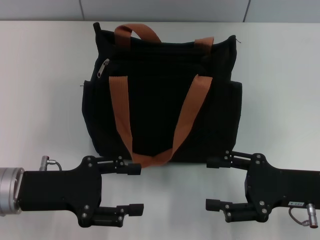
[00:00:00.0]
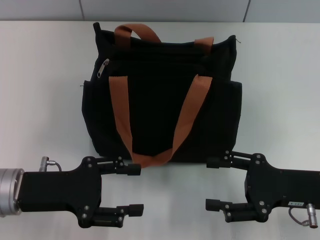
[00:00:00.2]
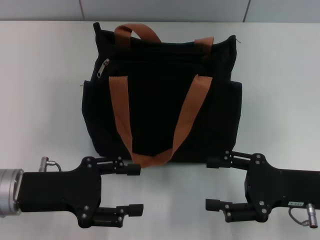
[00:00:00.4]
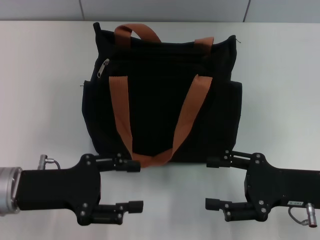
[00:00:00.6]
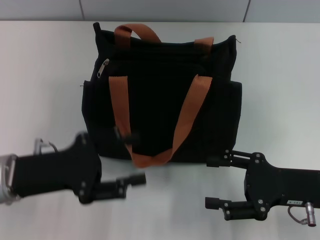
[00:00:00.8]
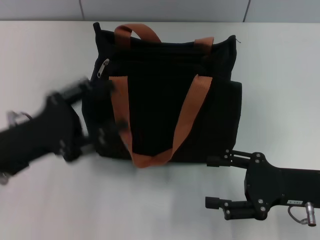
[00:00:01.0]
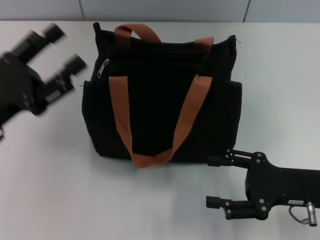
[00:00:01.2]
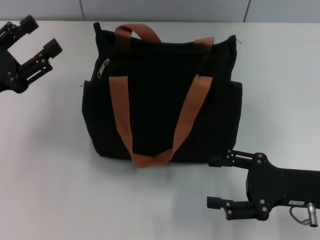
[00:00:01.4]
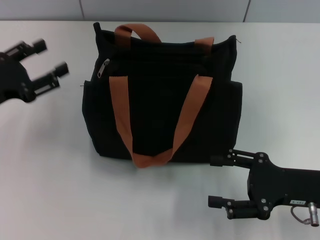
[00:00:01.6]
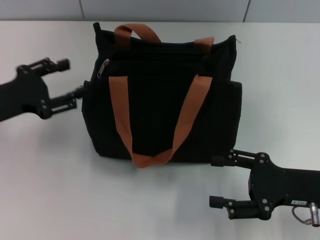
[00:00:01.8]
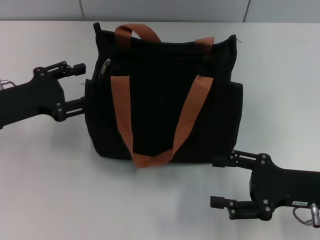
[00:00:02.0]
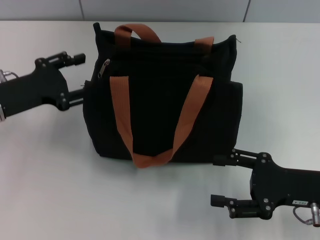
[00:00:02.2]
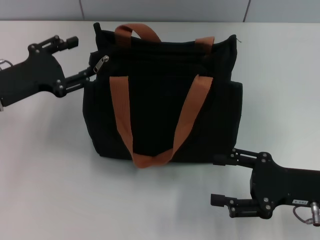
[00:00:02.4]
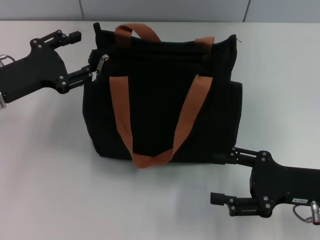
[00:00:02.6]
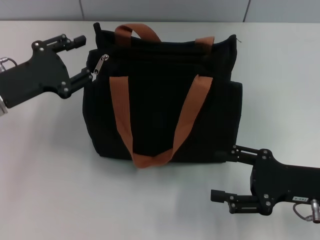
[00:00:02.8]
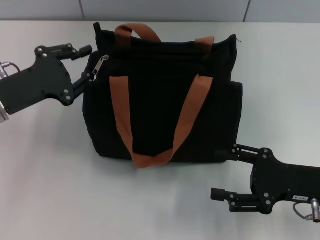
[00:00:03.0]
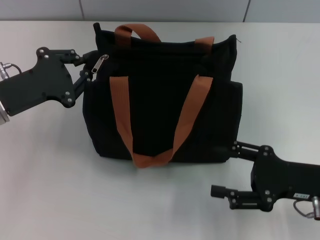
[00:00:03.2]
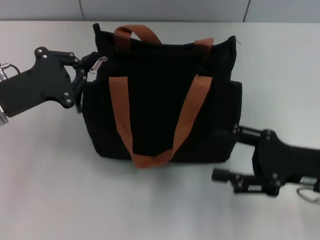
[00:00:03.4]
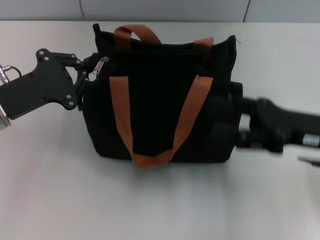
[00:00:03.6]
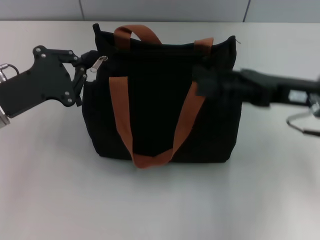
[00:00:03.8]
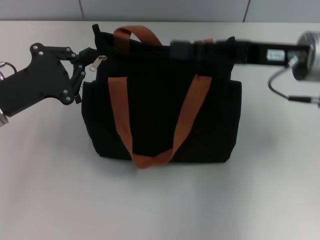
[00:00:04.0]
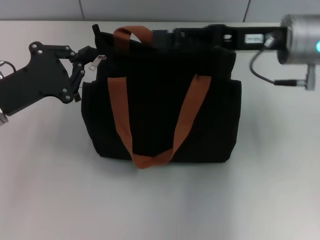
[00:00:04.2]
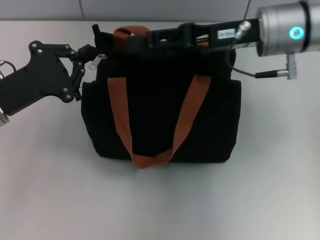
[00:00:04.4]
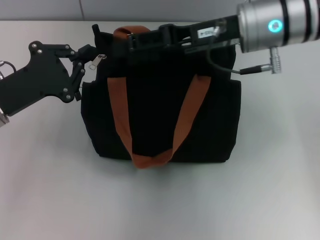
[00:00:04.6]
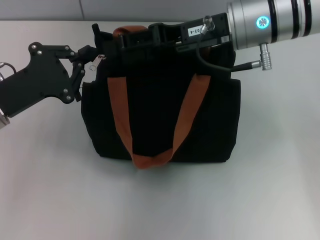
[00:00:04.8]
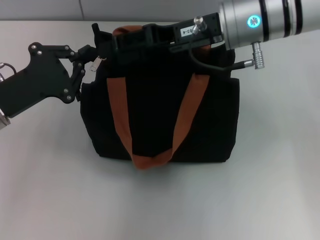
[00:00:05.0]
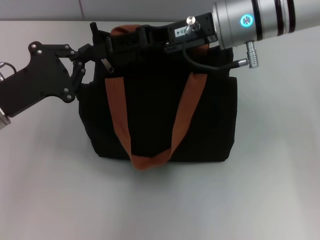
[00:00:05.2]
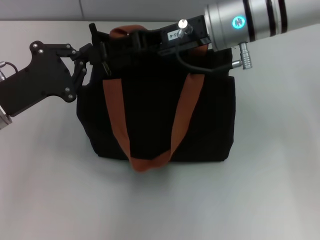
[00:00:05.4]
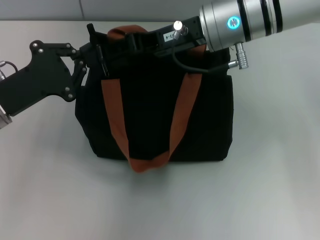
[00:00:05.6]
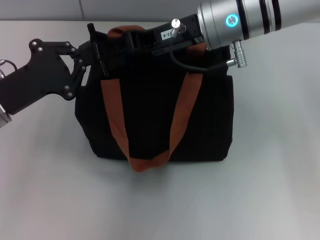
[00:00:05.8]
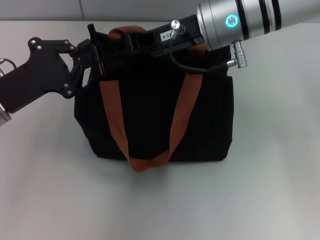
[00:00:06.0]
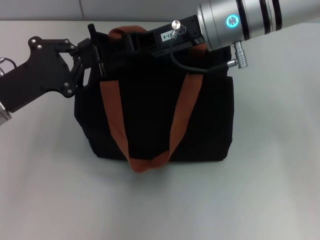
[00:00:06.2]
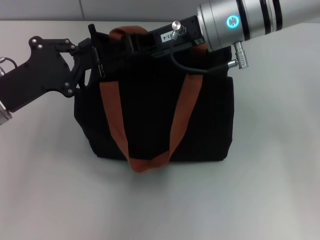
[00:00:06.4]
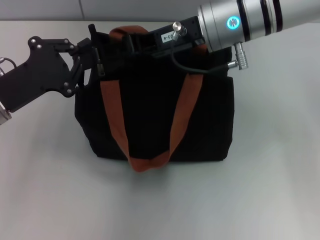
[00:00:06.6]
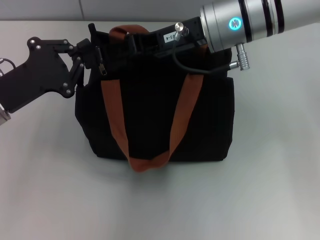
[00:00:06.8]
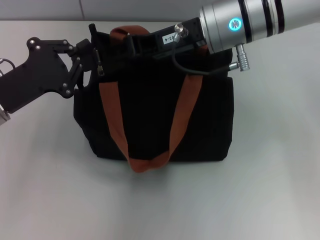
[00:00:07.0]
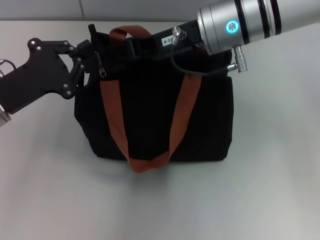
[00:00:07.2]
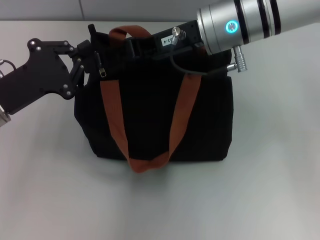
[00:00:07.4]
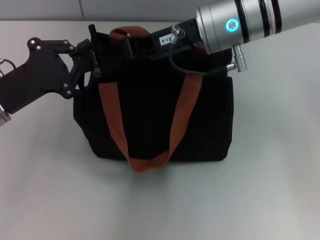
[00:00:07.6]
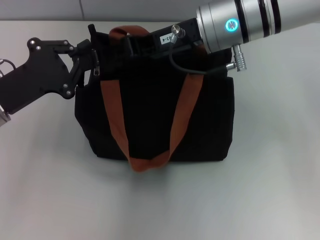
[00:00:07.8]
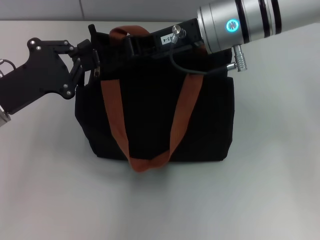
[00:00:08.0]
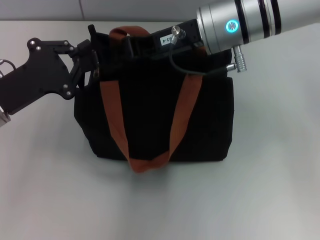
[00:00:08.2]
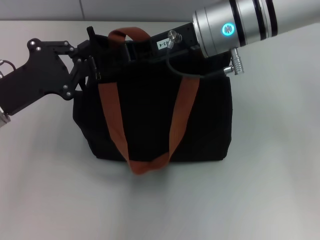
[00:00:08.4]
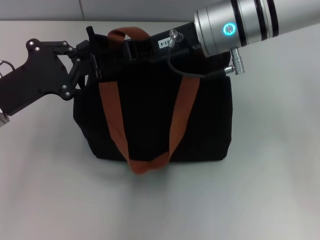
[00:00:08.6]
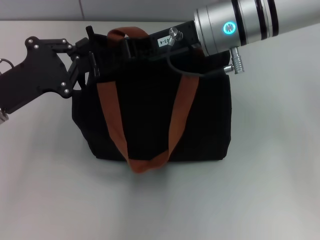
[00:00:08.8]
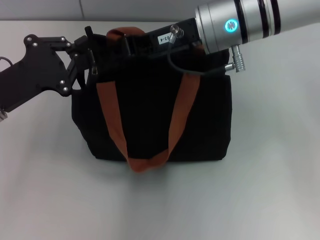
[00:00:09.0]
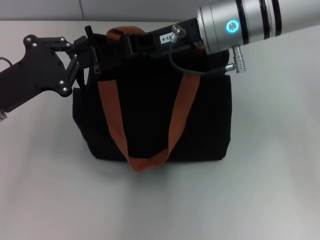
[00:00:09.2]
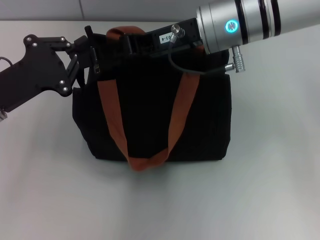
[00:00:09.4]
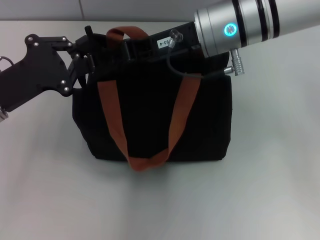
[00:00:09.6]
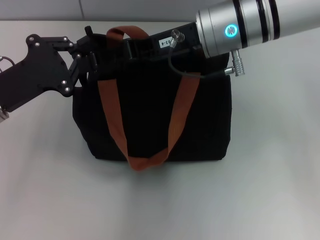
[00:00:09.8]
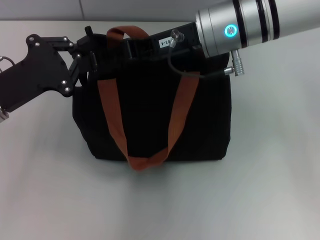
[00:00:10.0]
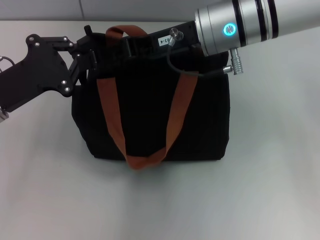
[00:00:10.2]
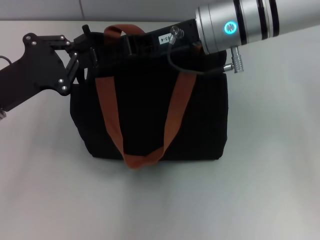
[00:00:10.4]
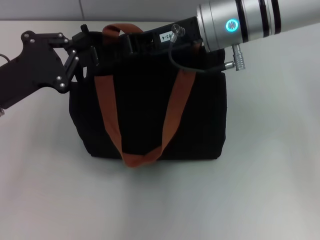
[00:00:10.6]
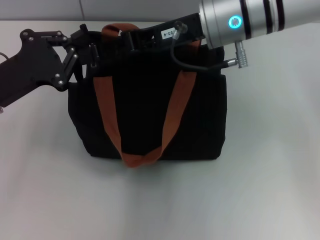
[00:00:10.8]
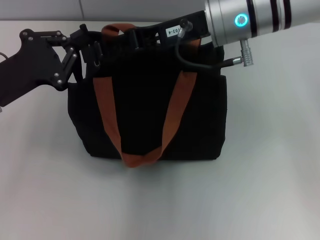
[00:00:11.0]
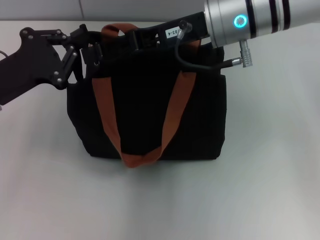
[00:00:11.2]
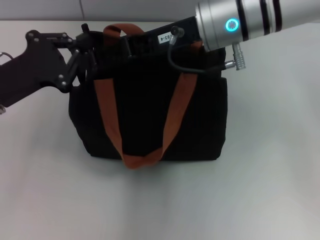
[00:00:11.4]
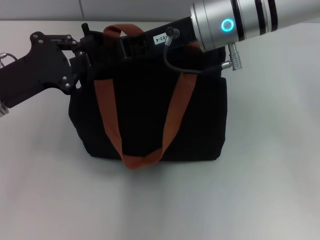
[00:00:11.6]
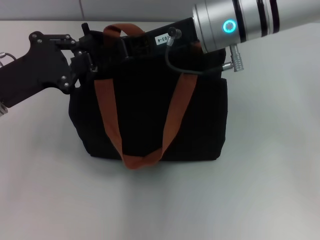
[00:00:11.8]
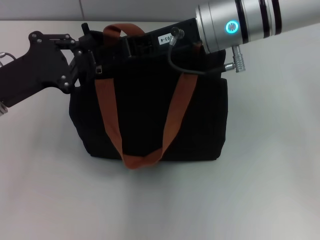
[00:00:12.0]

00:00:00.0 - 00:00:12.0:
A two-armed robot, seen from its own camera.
00:00:00.0 - 00:00:01.6: The left gripper is displaced to the left and forward by roughly 10 cm.
00:00:03.0 - 00:00:04.4: The right gripper travels forward, upward and to the left by some 25 cm. The left gripper closes its fingers.
00:00:04.4 - 00:00:06.0: The right gripper is displaced to the left by roughly 5 cm.
00:00:06.0 - 00:00:09.0: Both grippers stay put.
00:00:09.0 - 00:00:10.4: Neither gripper changes place.
00:00:10.4 - 00:00:12.0: The grippers stay close to where they were, moving slightly.

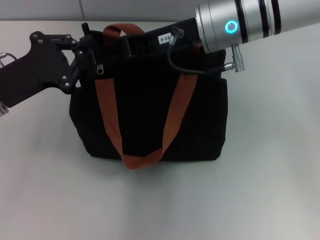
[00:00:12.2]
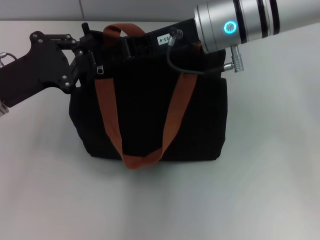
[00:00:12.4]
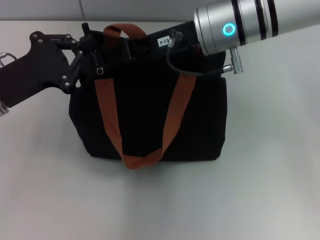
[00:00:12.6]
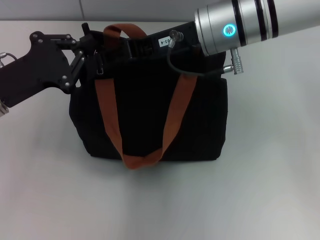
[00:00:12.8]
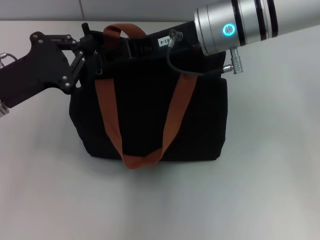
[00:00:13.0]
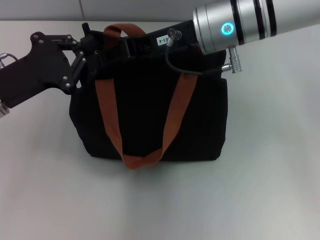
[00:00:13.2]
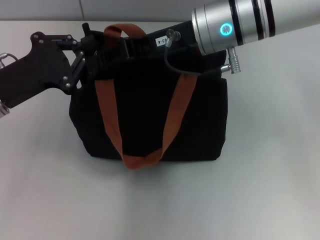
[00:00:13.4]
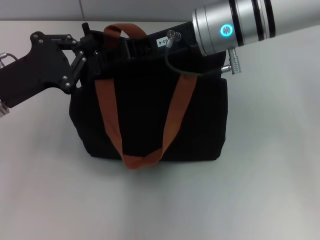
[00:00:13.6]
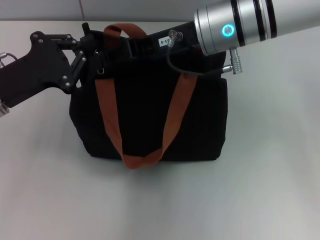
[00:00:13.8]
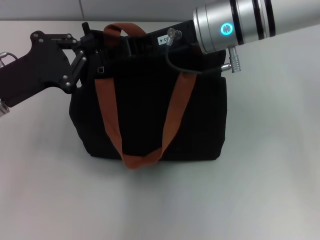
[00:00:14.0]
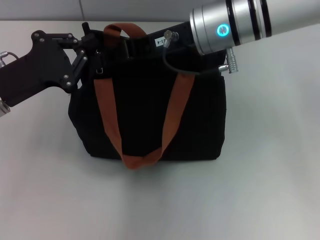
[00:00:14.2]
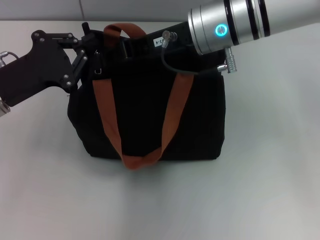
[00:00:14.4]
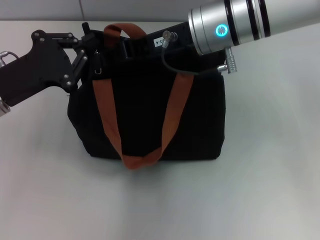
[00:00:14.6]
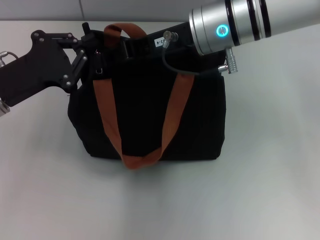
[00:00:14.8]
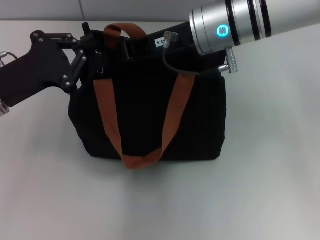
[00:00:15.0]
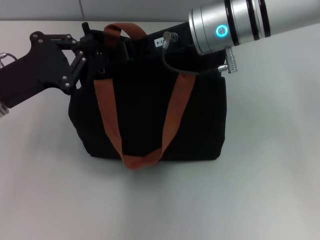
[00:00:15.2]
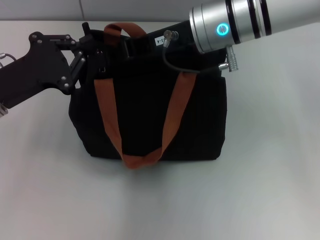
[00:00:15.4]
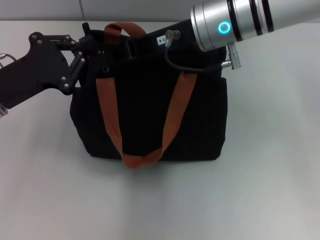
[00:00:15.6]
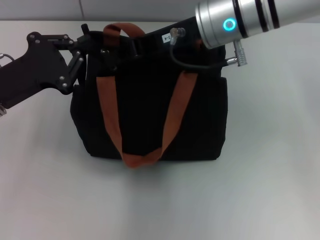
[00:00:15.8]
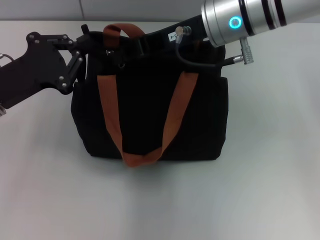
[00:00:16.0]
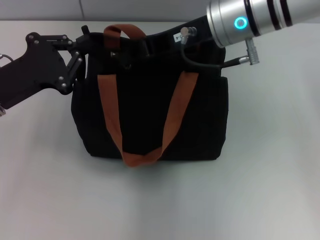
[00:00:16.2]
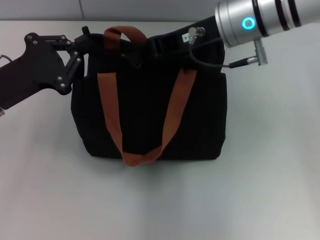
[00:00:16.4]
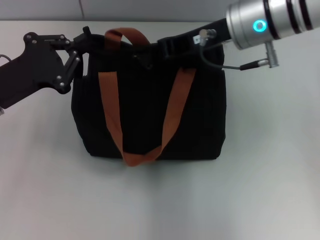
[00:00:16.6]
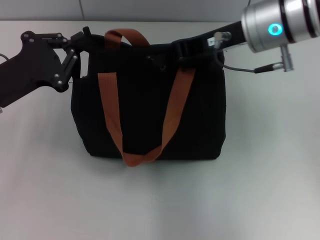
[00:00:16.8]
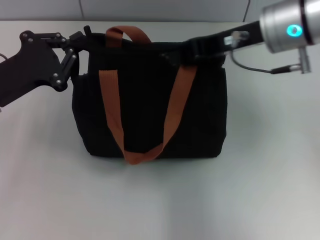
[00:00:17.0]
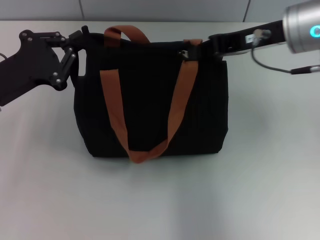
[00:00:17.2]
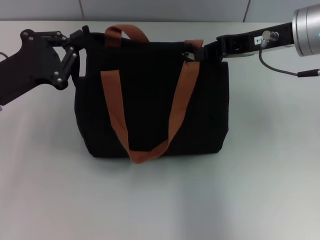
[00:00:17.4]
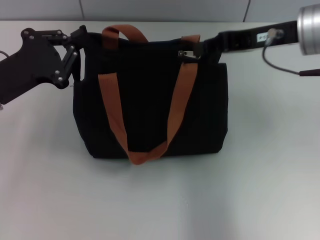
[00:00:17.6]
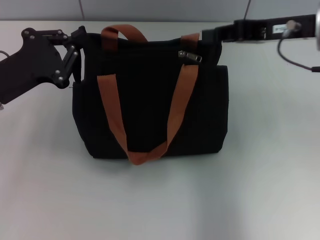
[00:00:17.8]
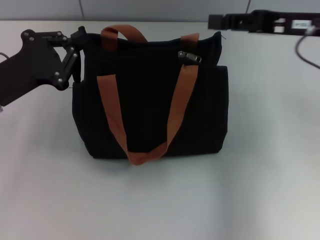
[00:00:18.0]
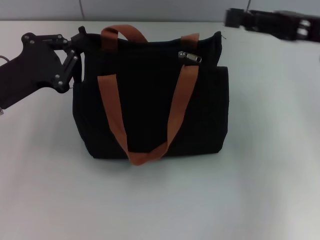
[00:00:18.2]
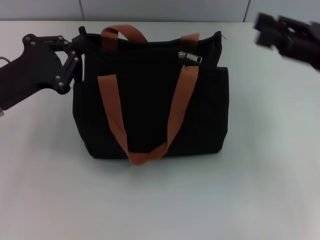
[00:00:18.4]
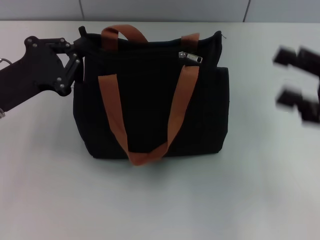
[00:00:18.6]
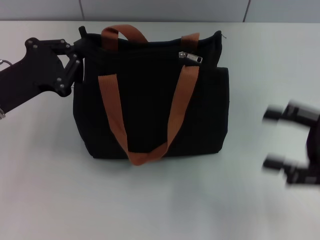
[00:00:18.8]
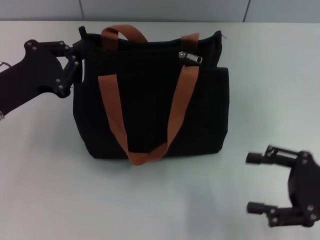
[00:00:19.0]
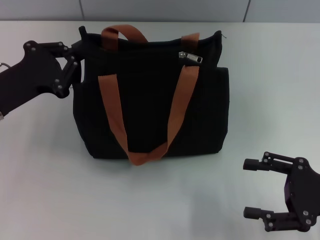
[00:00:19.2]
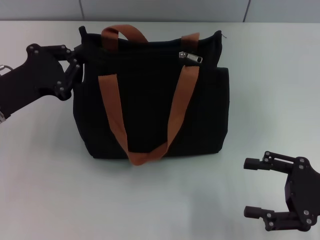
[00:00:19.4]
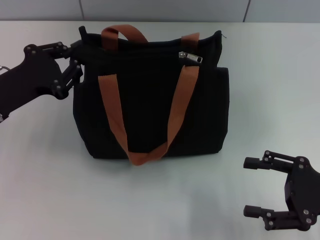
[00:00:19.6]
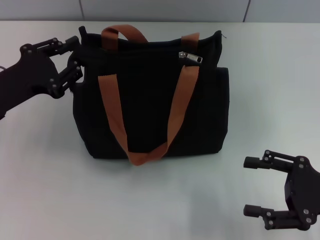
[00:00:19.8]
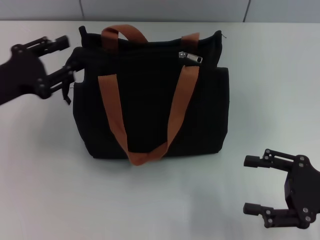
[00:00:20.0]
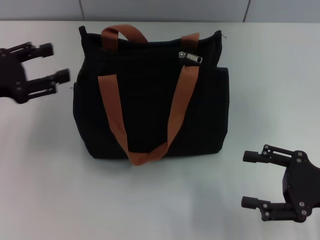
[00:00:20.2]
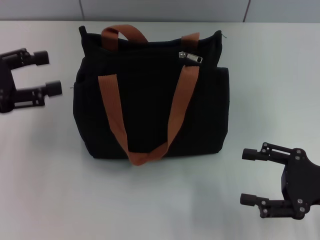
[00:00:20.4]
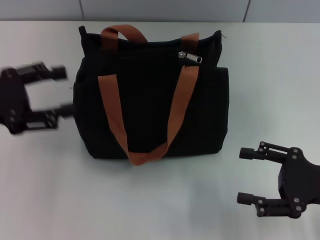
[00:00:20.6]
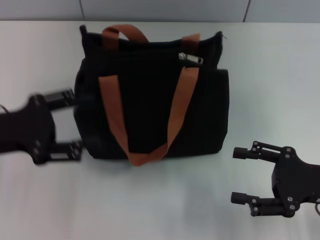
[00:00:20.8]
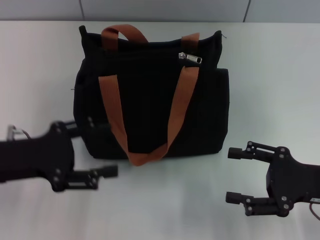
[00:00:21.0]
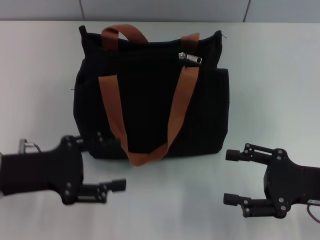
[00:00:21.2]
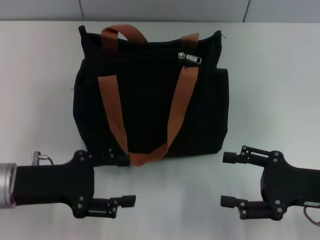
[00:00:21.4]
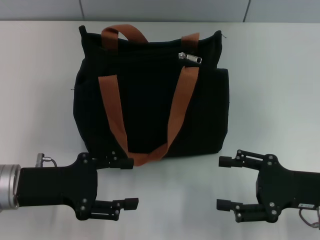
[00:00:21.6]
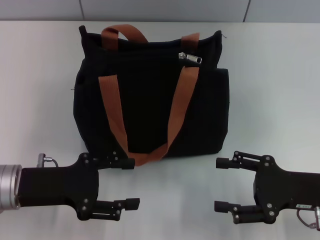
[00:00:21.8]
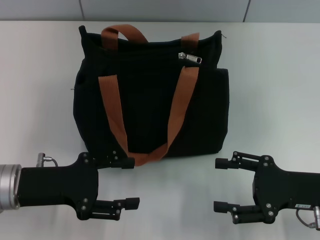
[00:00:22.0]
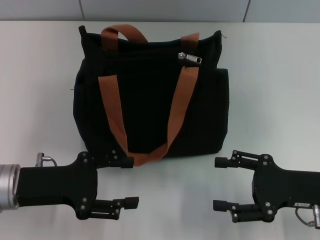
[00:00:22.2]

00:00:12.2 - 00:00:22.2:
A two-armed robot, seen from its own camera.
Step, 00:00:12.2 - 00:00:18.0: Pull up the zipper with your right hand.
Step, 00:00:18.2 - 00:00:20.2: Grab the zipper with your left hand.
00:00:12.2 - 00:00:13.6: The right gripper closes its fingers.
00:00:13.6 - 00:00:15.0: The two grippers keep their place.
00:00:15.0 - 00:00:16.4: The grippers make only small movements.
00:00:16.4 - 00:00:18.0: The right gripper travels to the right by about 15 cm.
00:00:18.0 - 00:00:19.4: The right gripper heads backward, downward and to the right, covering some 20 cm, and opens up.
00:00:19.4 - 00:00:20.8: The left gripper opens its fingers.
00:00:20.8 - 00:00:22.2: The left gripper moves downward, roughly 5 cm.
